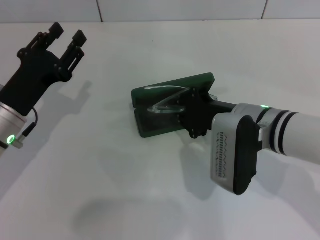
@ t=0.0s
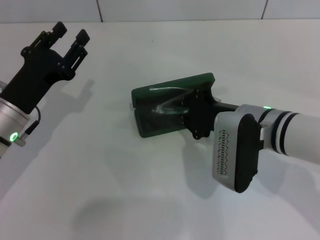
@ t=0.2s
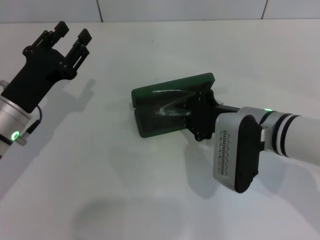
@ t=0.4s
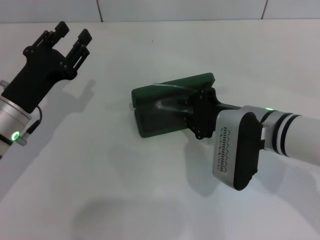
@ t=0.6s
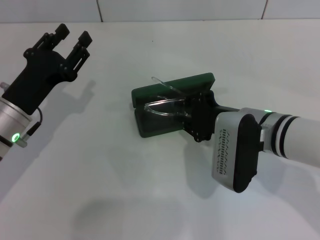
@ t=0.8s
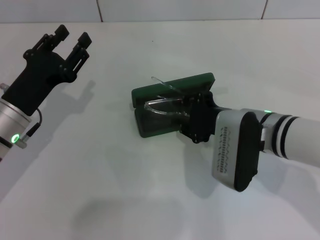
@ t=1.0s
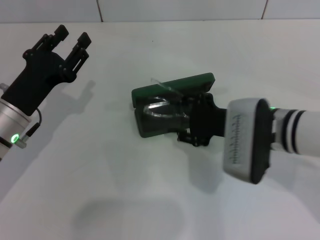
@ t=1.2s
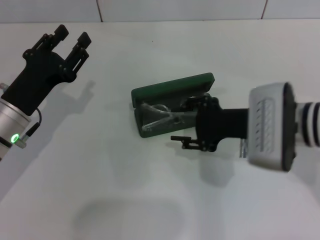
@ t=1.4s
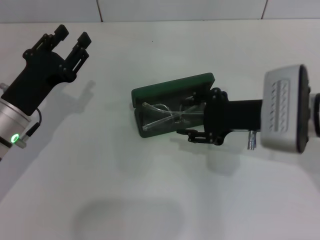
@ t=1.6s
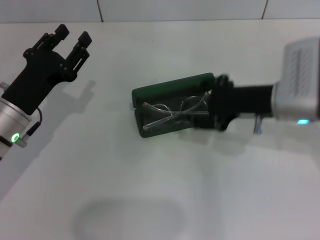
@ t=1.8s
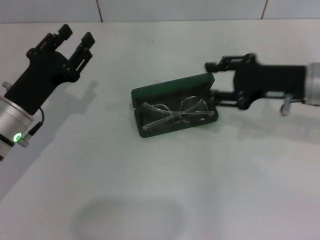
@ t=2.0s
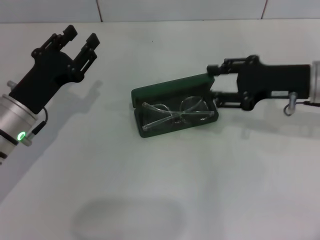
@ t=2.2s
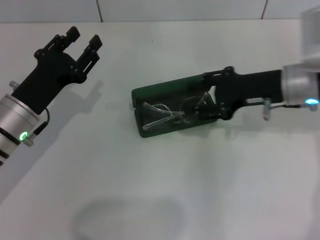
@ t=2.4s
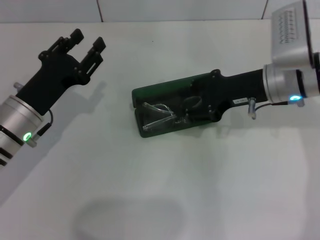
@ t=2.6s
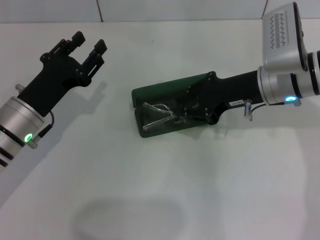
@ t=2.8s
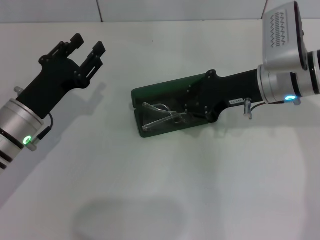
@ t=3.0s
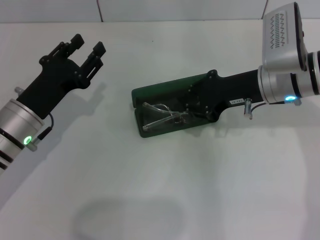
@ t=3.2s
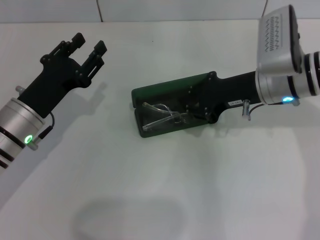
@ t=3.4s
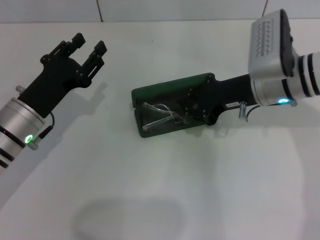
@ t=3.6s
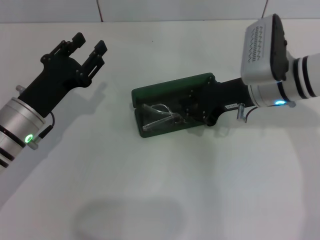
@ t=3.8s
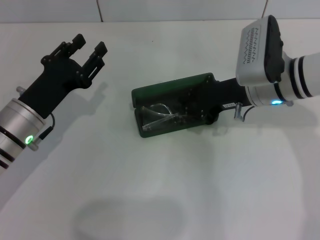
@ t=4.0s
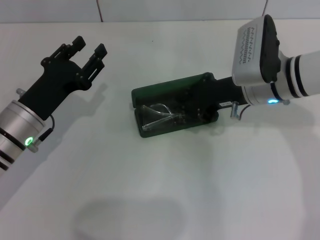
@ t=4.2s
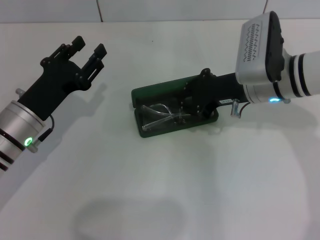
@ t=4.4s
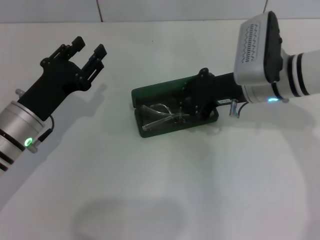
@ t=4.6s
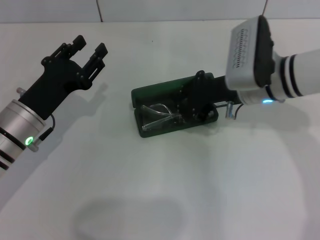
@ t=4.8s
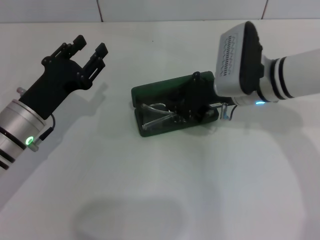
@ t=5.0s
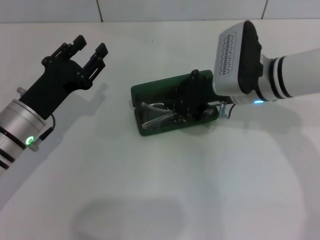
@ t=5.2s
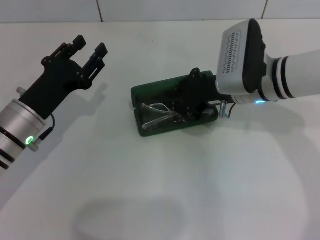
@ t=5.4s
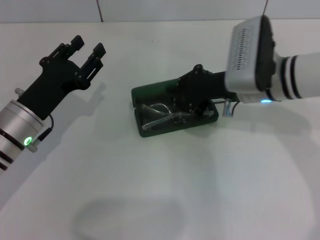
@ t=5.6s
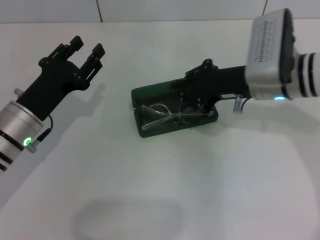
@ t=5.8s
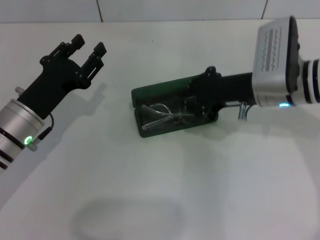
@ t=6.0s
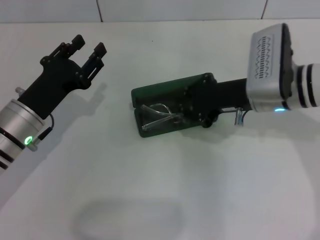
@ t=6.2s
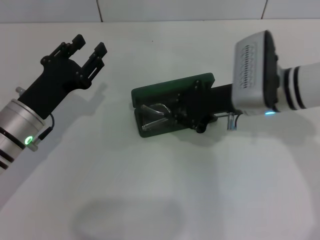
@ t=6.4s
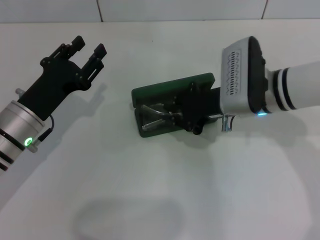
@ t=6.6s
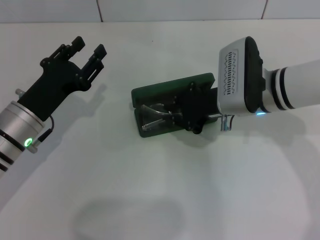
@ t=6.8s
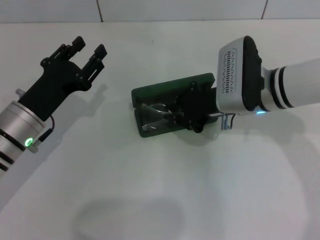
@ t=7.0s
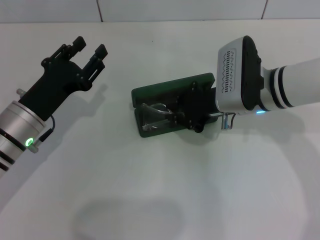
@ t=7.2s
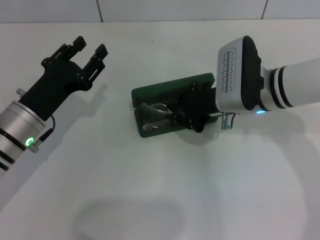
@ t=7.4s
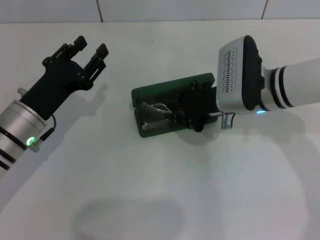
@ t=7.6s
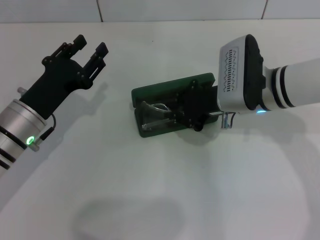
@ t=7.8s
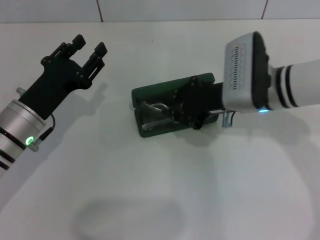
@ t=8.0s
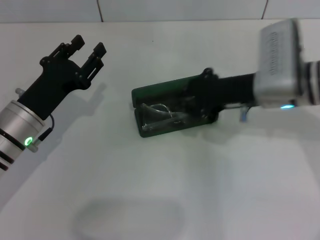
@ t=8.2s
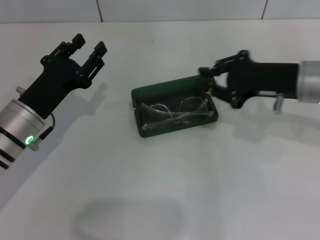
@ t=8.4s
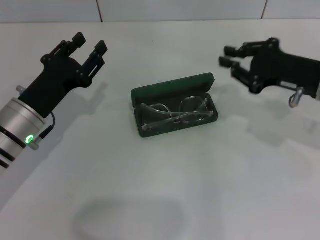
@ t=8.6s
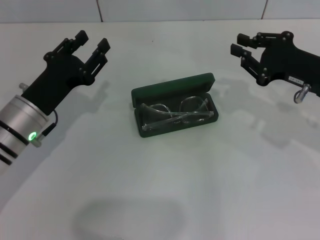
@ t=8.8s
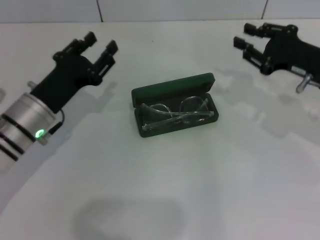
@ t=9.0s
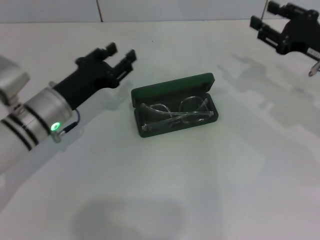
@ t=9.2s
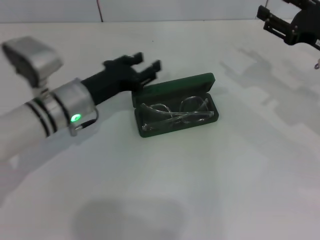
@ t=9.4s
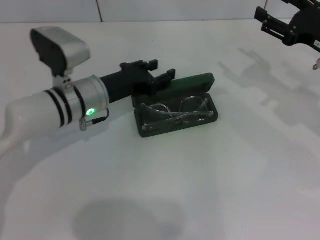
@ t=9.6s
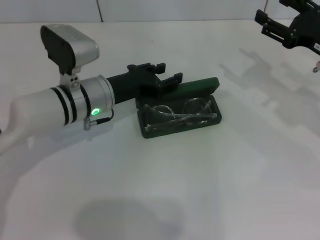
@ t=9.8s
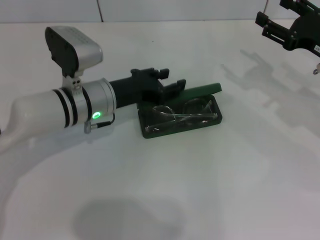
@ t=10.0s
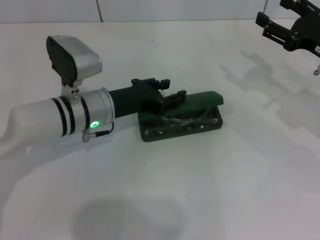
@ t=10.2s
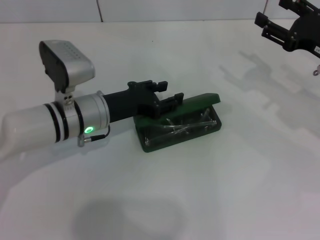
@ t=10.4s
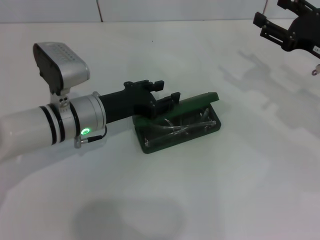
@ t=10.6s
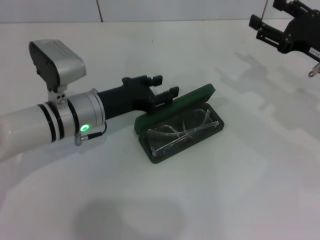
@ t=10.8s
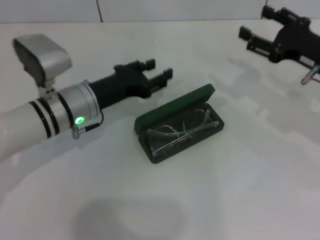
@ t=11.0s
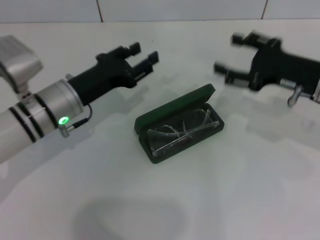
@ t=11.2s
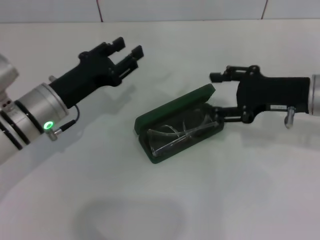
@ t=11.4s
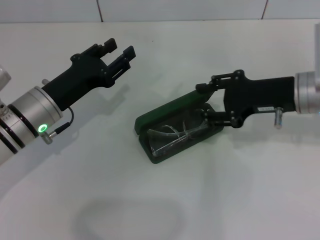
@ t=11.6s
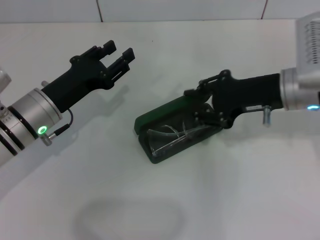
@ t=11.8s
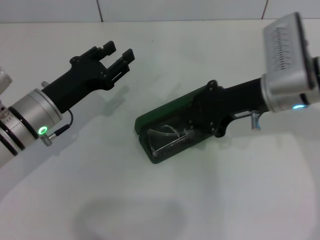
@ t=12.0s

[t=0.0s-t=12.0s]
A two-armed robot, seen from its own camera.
t=0.0s to t=1.6s: The right gripper changes place by some 5 cm, and opens its fingers.
t=1.6s to t=3.0s: The right gripper heads forward, covering approximately 5 cm, and closes its fingers.
t=3.0s to t=7.6s: There are only small adjustments of the grippers.
t=7.6s to t=9.0s: The right gripper heads to the right, covering approximately 15 cm.
t=9.0s to t=10.4s: The right gripper opens its fingers. The left gripper travels to the right by roughly 5 cm.
t=10.4s to t=12.0s: The left gripper heads to the left, covering roughly 5 cm; the right gripper shifts roughly 10 cm to the left, and closes its fingers.

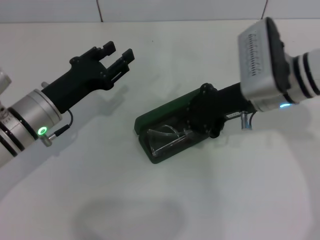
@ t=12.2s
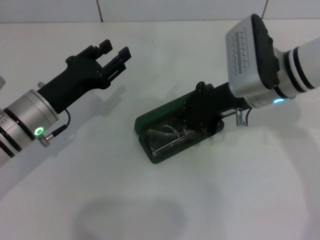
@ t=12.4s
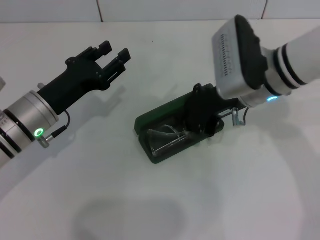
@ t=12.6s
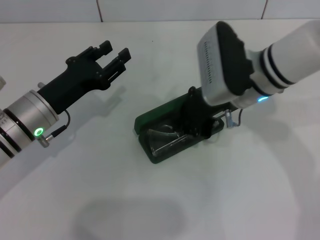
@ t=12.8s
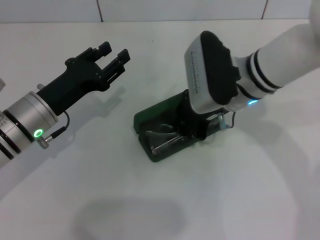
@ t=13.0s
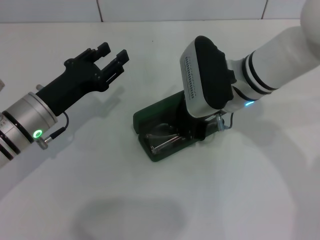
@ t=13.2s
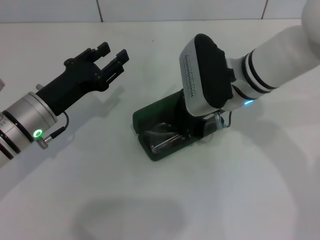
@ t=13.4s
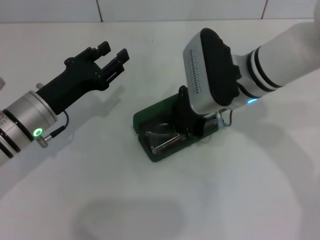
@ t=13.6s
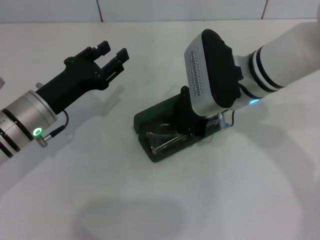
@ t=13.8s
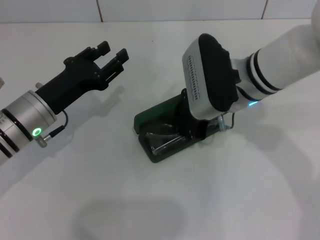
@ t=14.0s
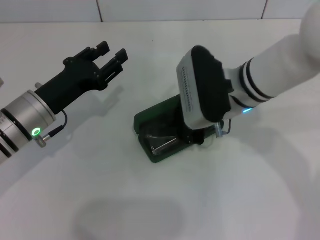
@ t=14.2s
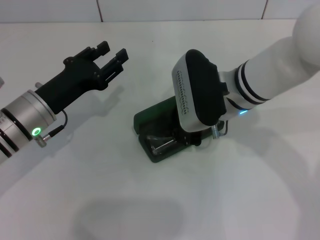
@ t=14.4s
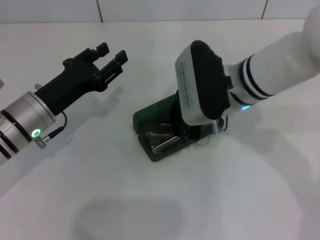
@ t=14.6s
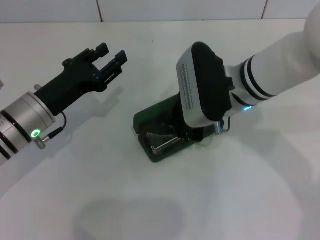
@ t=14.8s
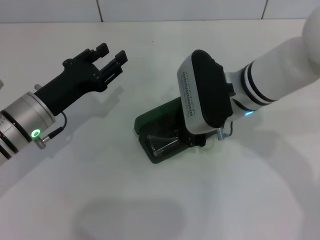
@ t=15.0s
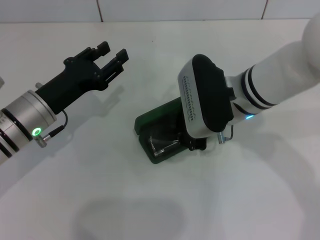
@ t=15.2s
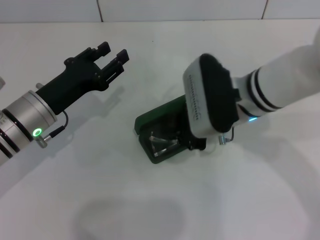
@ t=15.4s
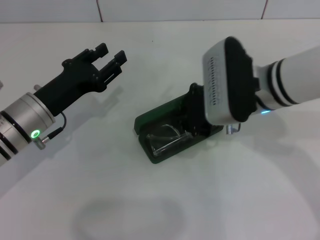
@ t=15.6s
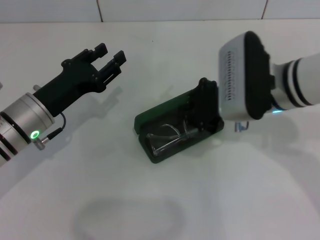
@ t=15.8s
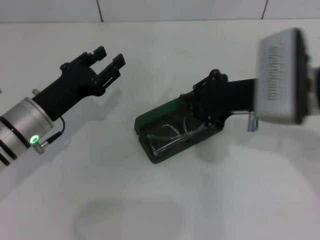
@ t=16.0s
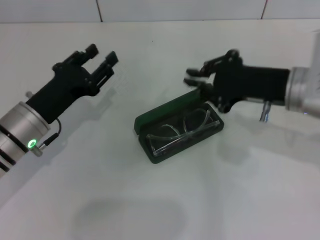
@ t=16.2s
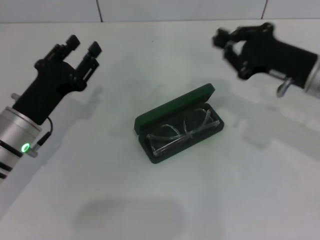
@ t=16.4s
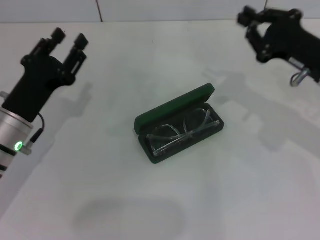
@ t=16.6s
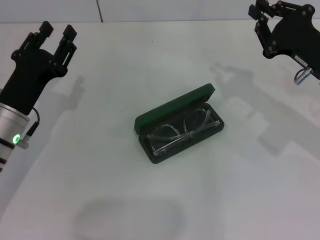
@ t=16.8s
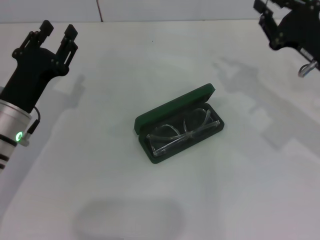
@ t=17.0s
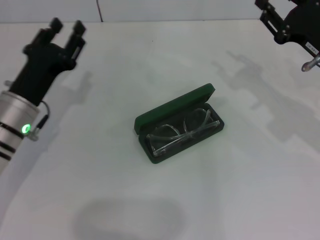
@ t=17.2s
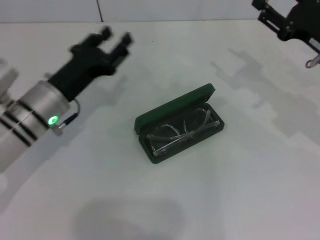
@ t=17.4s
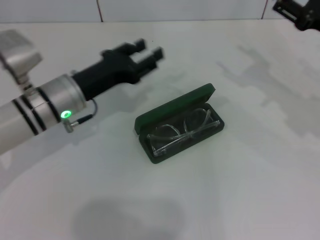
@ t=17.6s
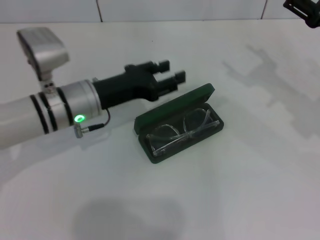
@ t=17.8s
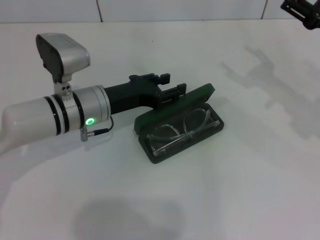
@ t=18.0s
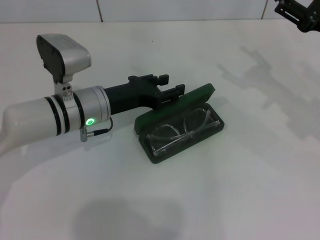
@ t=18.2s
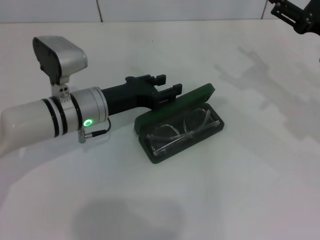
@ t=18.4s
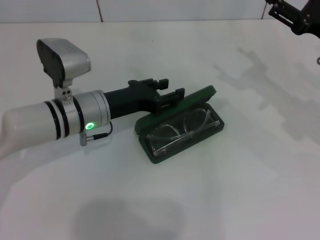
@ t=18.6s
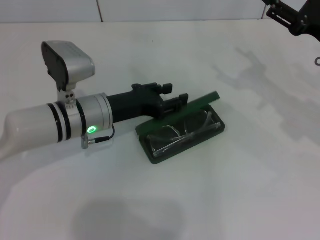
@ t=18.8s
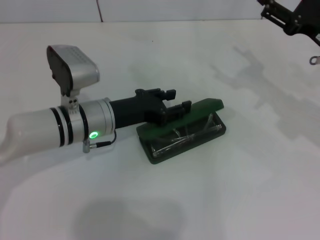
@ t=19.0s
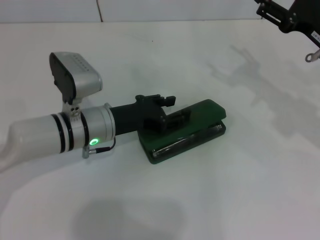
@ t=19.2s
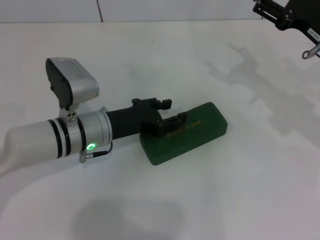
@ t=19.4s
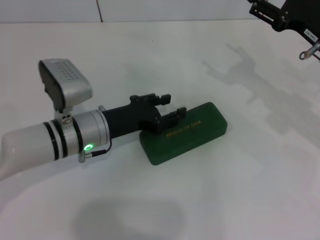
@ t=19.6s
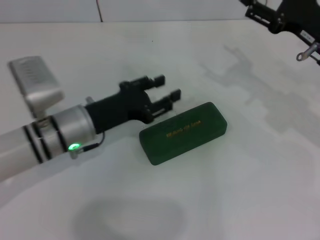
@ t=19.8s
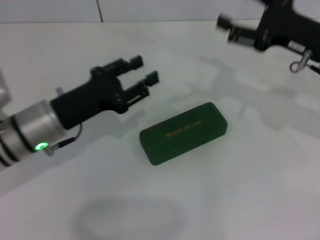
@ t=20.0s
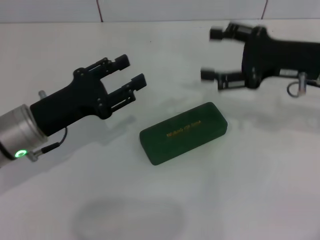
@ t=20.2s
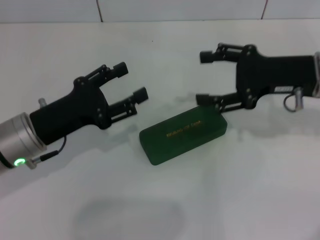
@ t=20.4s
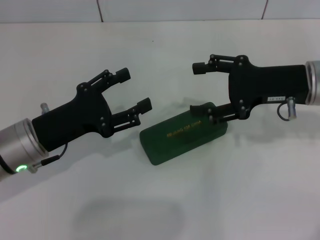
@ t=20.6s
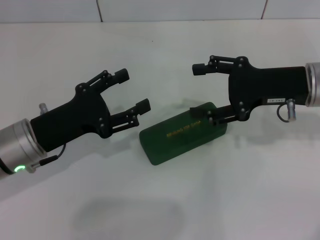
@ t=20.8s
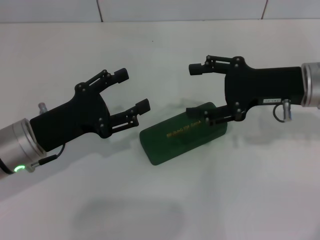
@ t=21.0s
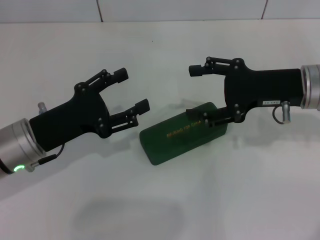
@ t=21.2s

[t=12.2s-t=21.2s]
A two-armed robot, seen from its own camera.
Step, t=12.2s to t=15.6s: Put the glasses into the case with your right hand.
Step, t=15.8s to t=19.2s: Close the glasses case with your left hand.
t=12.2s to t=13.8s: The right gripper heads to the left, covering approximately 5 cm.
t=13.8s to t=15.2s: The grippers stay close to where they were, moving slightly.
t=15.2s to t=16.6s: The right gripper goes approximately 15 cm to the right.
t=16.6s to t=18.2s: The left gripper travels to the right and forward by about 10 cm, while the right gripper opens.
t=18.2s to t=19.8s: The grippers make only small movements.
t=19.8s to t=21.2s: The left gripper heads to the left, covering some 5 cm.
